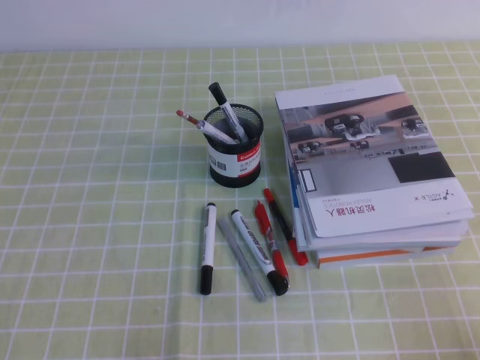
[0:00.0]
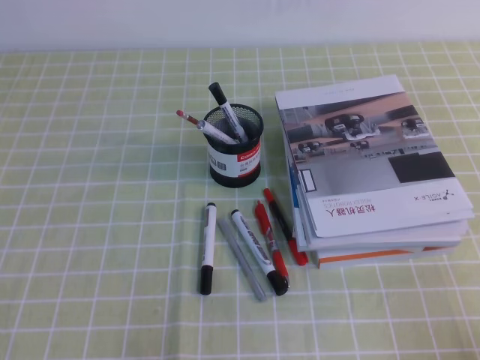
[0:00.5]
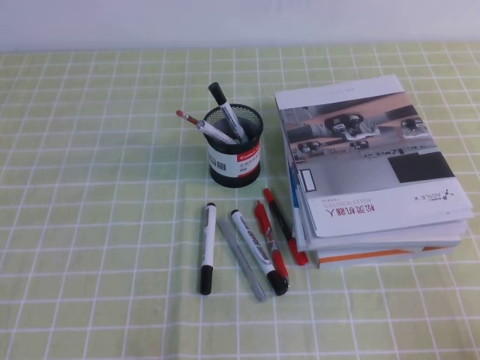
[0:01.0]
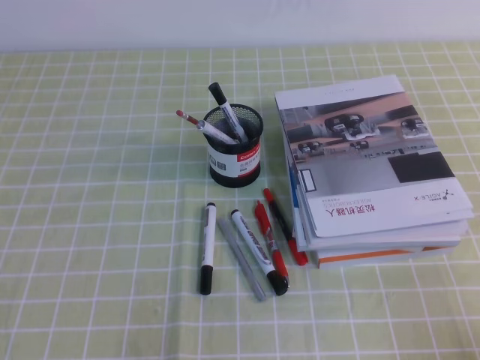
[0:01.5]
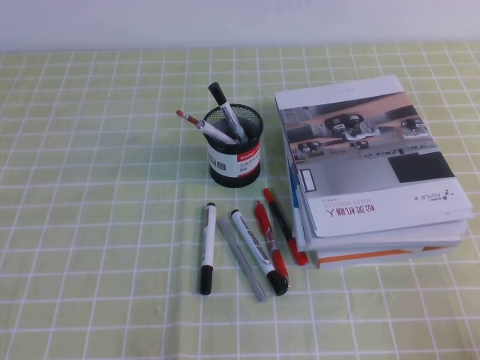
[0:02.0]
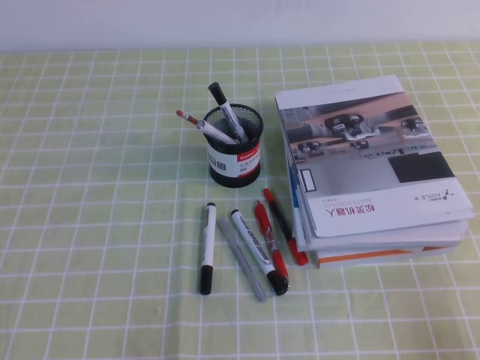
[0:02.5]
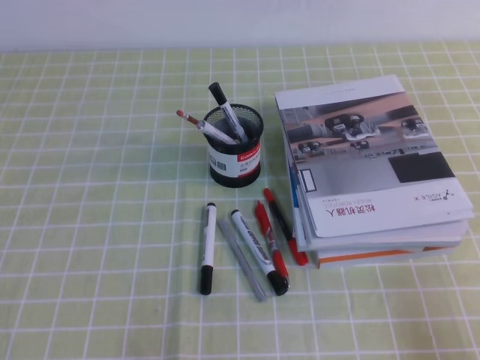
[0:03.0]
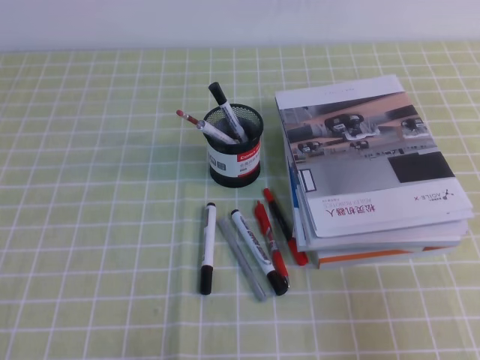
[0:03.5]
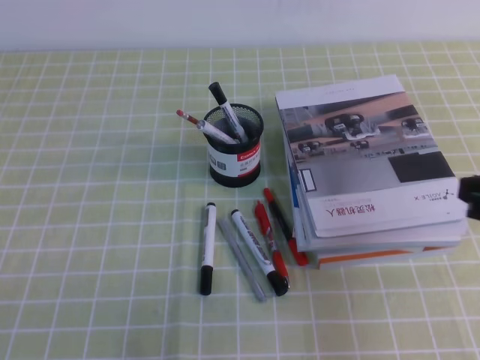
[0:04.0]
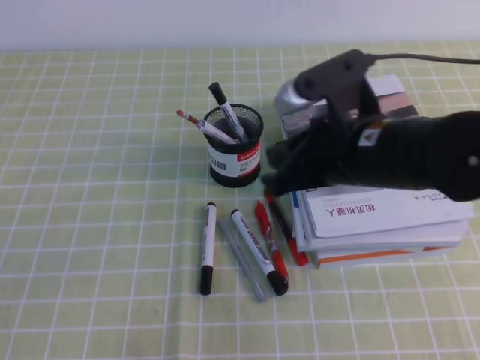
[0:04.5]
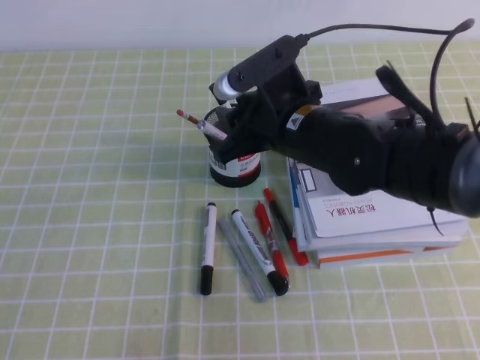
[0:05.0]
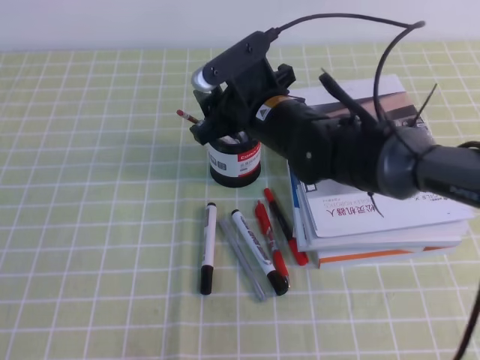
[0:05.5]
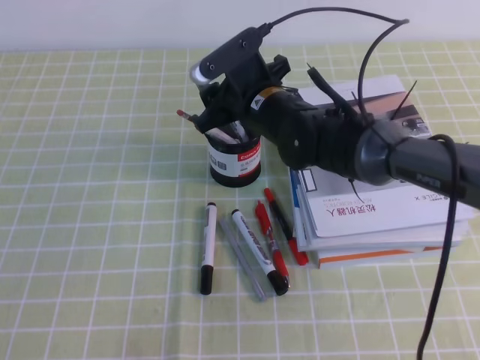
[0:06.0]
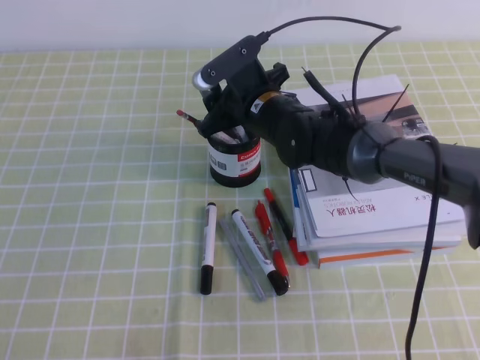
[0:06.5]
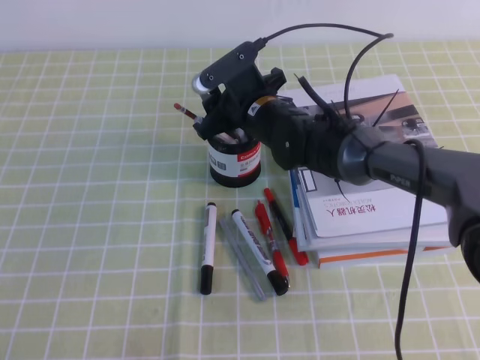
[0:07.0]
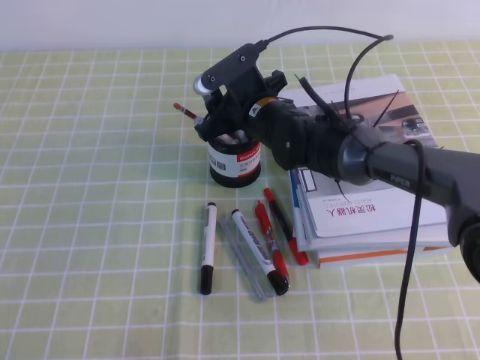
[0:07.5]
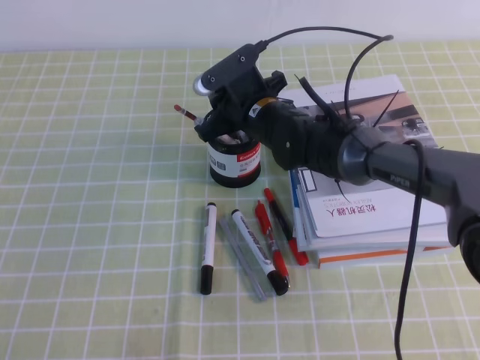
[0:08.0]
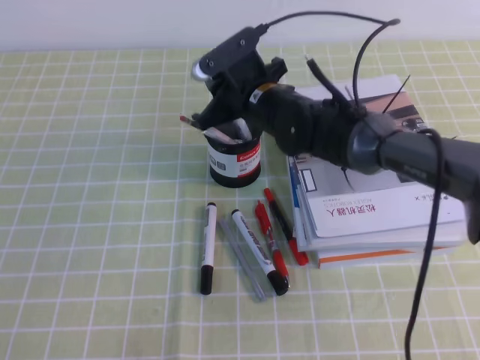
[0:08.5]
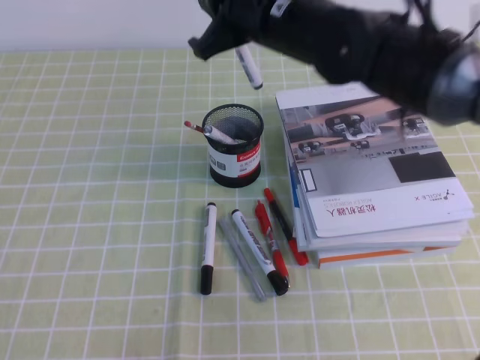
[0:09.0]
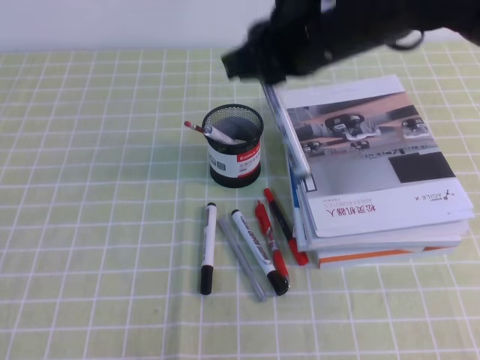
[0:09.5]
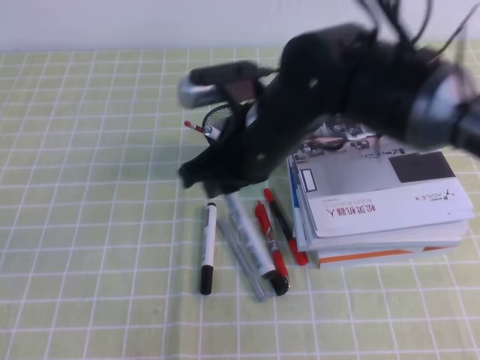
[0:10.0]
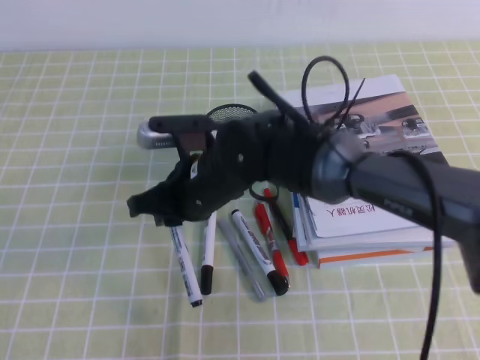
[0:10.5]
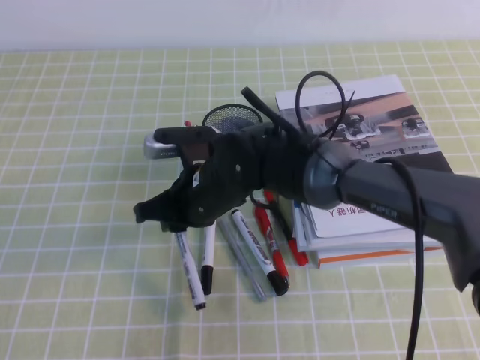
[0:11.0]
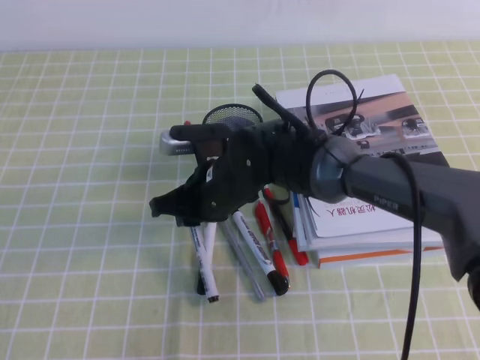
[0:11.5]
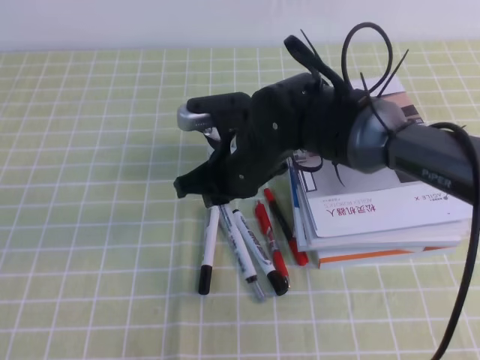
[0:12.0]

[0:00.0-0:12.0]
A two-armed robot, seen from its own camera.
0:00.0 to 0:02.0: Both grippers stay about where they are.
0:02.0 to 0:04.0: The right gripper travels forward, upward and to the left by approximately 20 cm.
0:04.0 to 0:06.0: The right gripper shifts some 35 cm to the left and forward, and opens its fingers.
0:06.0 to 0:08.0: The right gripper closes.
0:08.0 to 0:10.0: The right gripper is displaced backward and upward by some 15 cm.
0:10.0 to 0:12.0: The right gripper travels downward by approximately 10 cm.

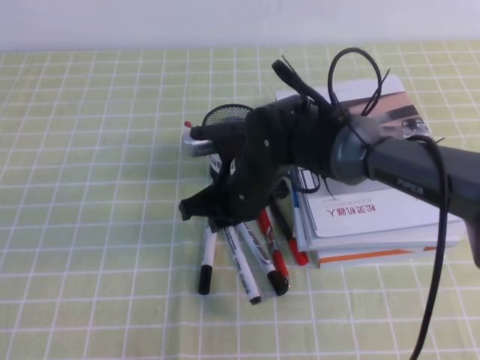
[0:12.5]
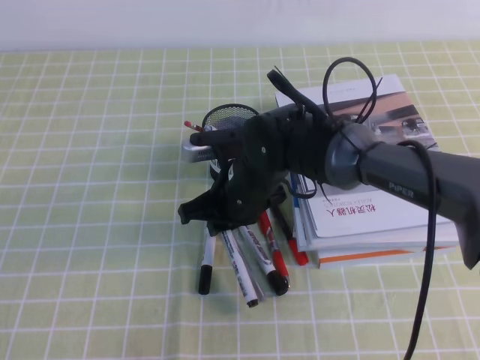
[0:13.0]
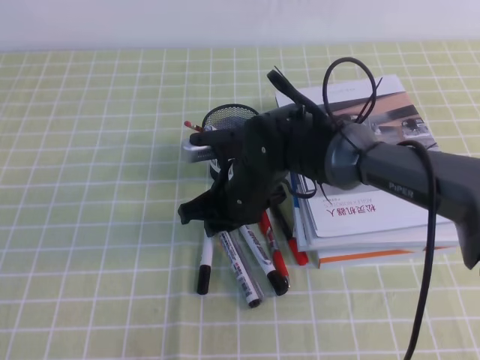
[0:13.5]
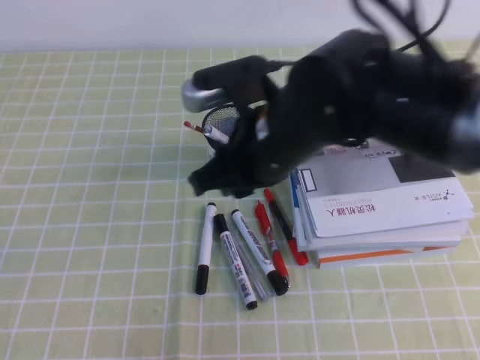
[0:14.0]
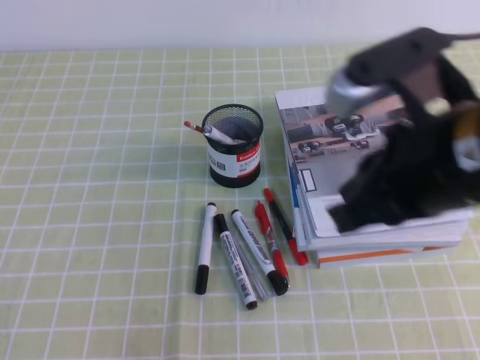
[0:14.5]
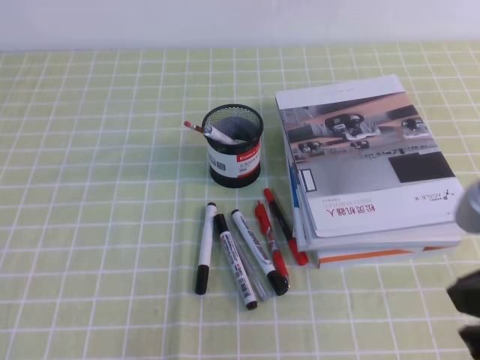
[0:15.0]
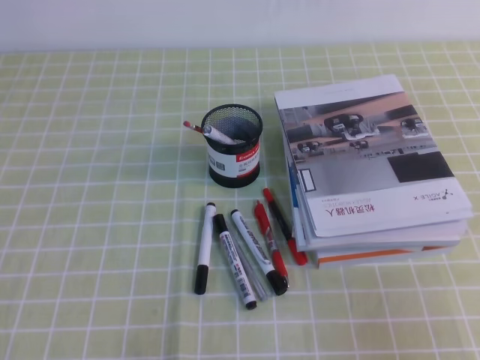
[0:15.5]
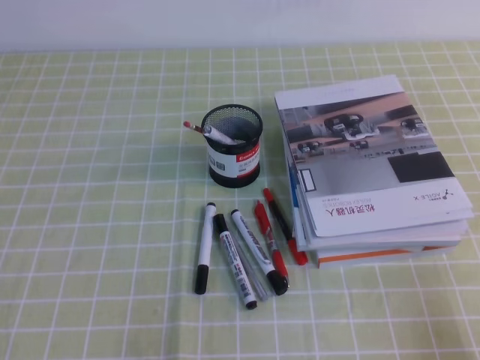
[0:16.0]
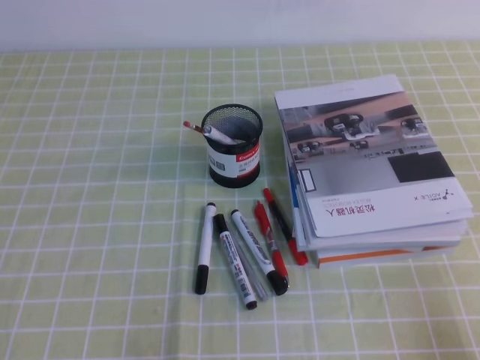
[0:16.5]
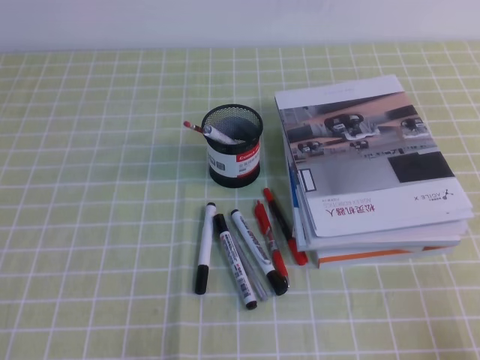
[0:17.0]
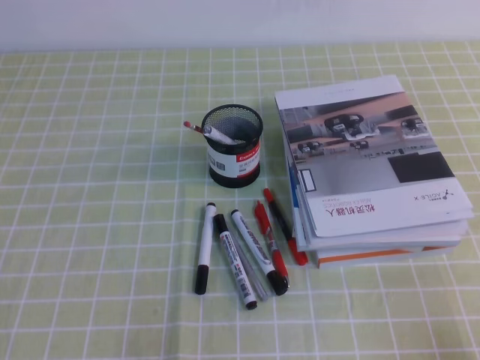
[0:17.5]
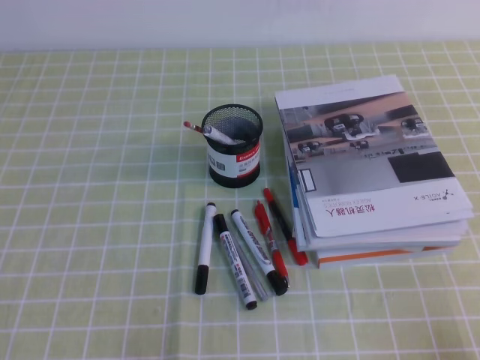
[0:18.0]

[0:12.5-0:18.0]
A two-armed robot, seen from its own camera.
Step, 0:12.5 to 0:18.0: Pick up the pen from the pen holder.
0:12.5 to 0:14.5: The right gripper travels upward, backward and to the right by approximately 25 cm.
0:14.5 to 0:16.0: The right gripper shifts some 30 cm to the right, downward and backward.
